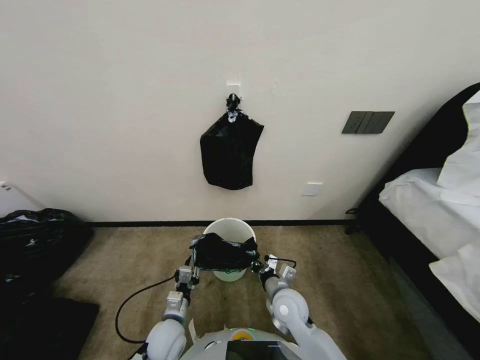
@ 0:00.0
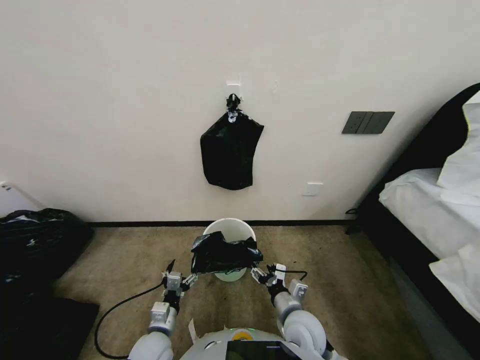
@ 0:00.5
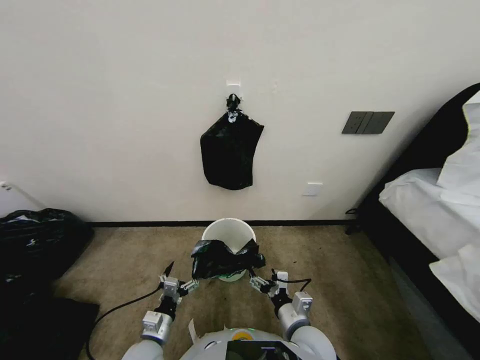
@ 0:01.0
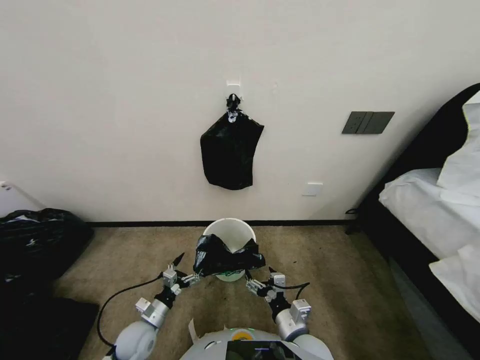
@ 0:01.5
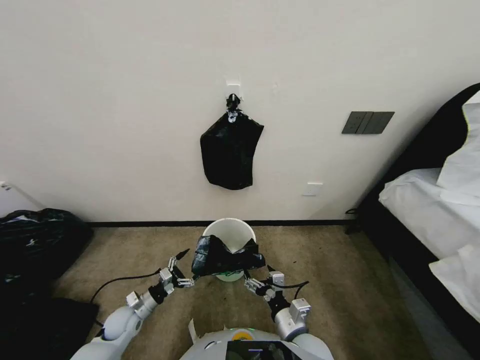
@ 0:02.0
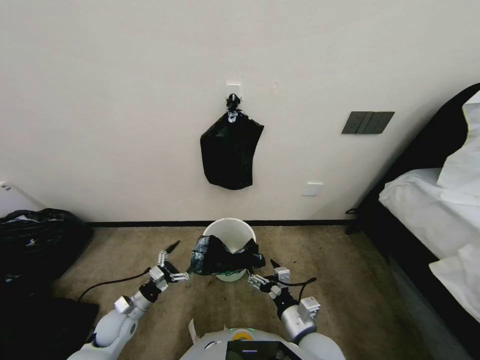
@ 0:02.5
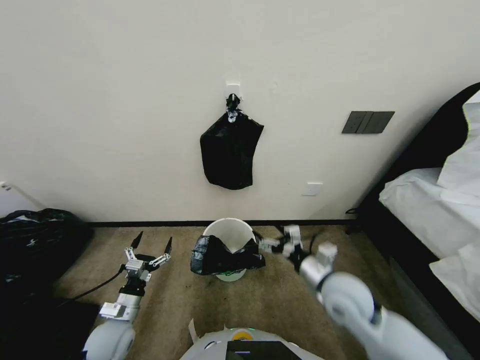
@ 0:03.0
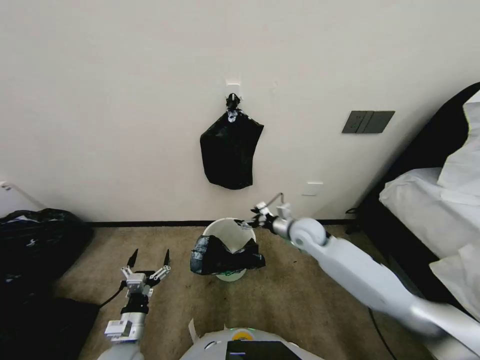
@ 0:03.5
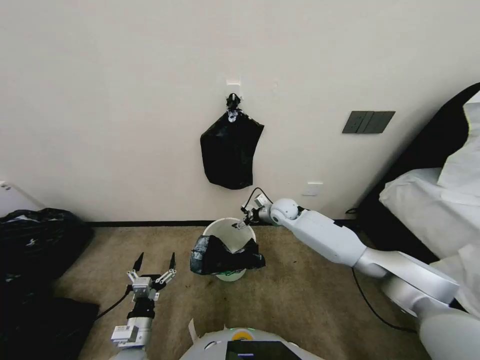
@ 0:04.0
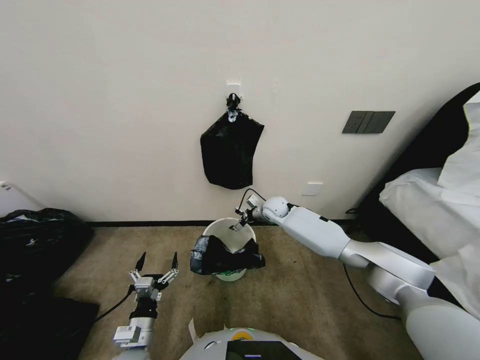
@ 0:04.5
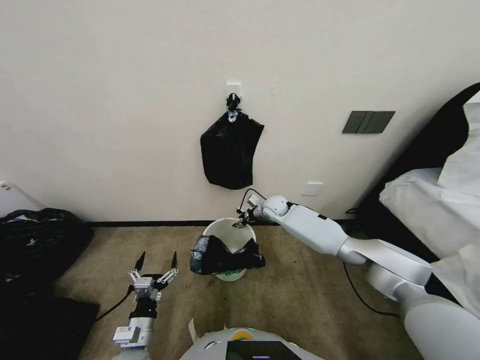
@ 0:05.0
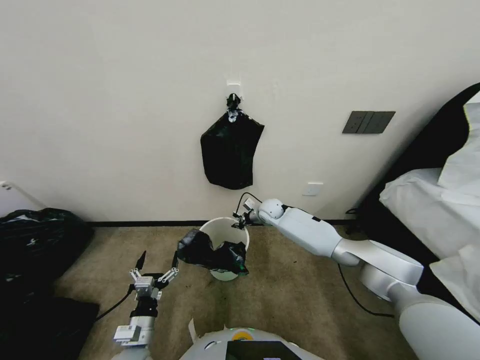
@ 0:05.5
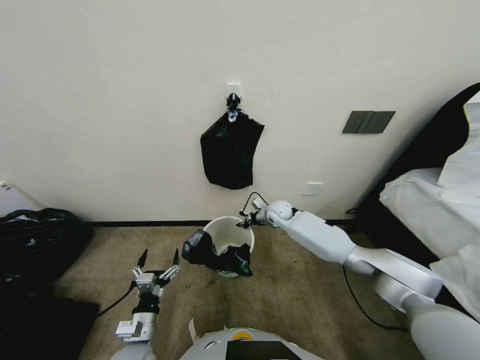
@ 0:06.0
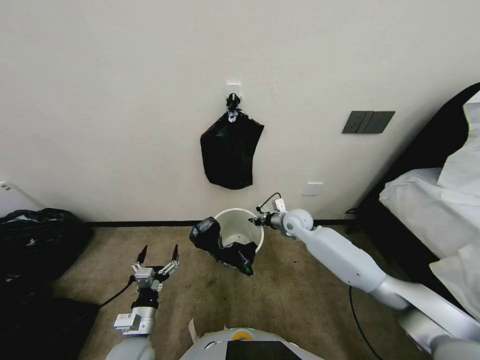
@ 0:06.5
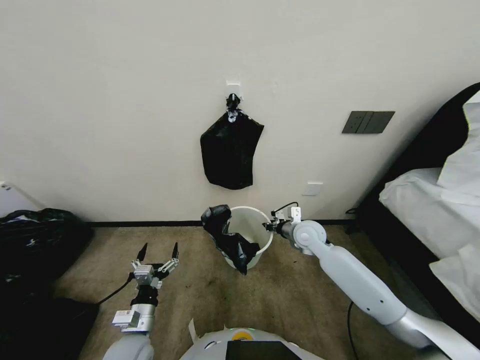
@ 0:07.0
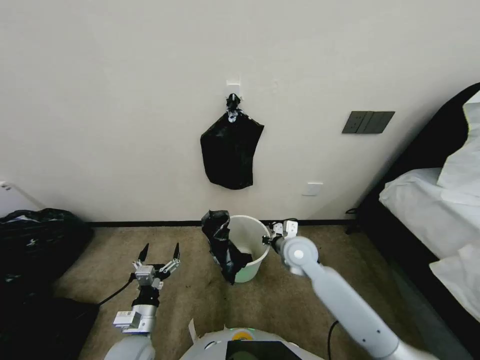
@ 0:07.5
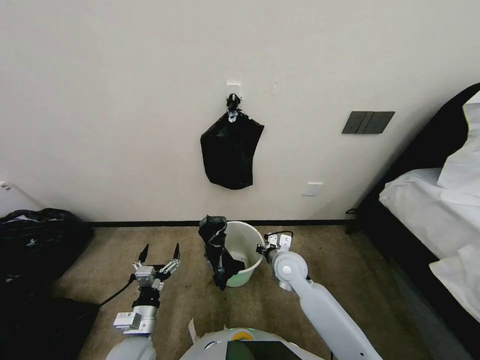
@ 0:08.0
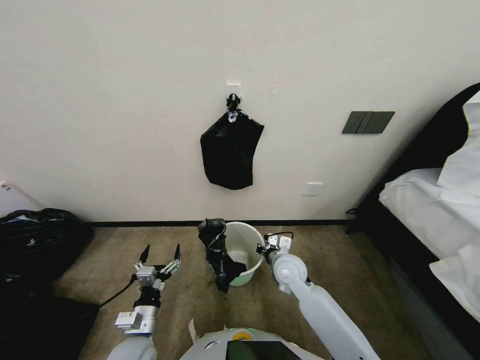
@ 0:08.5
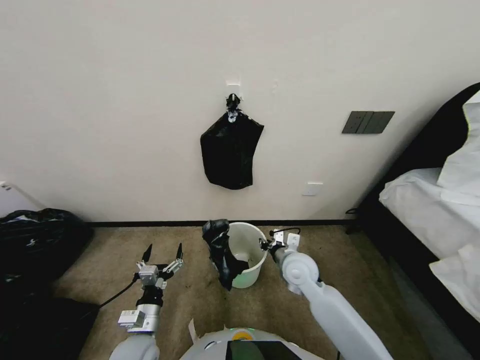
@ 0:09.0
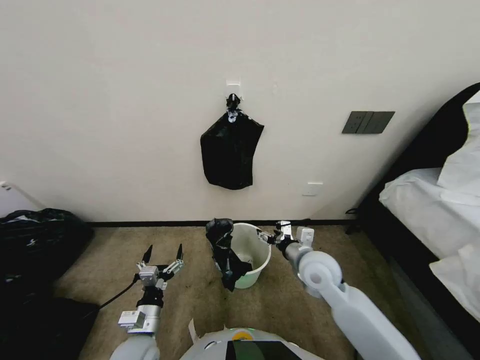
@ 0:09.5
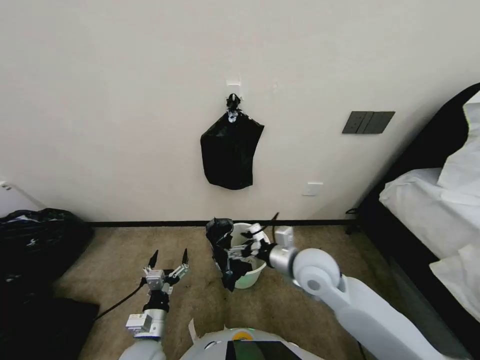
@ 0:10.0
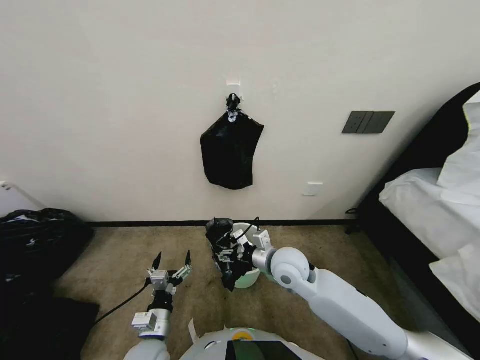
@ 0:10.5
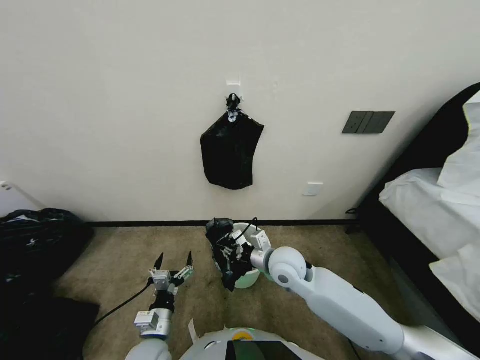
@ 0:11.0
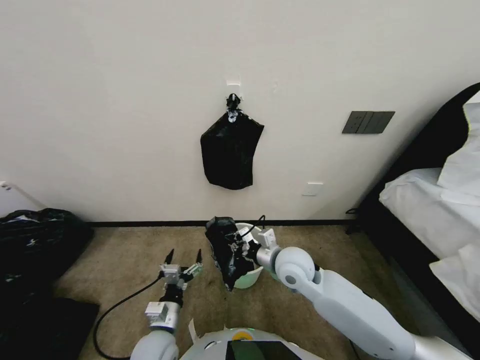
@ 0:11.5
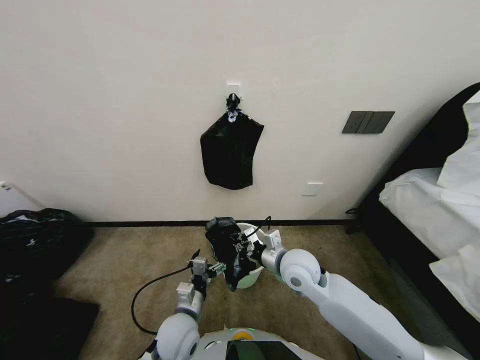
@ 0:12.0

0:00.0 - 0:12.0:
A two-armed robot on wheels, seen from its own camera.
Task of the whole recording: Place a trash bag onto the trash bin.
0:00.0 - 0:02.0: The left gripper is displaced to the left by approximately 15 cm, and opens, while the right gripper shifts some 10 cm backward, and opens up.
0:02.0 - 0:04.0: The right gripper is displaced forward by some 40 cm. Meanwhile the left gripper moves backward, to the right and upward, some 15 cm.
0:04.0 - 0:06.0: The right gripper closes up.
0:06.0 - 0:08.0: The right gripper shifts some 20 cm backward.
0:08.0 - 0:10.0: The right gripper is displaced upward and backward by roughly 10 cm, and opens.
0:10.0 - 0:12.0: The right gripper closes its fingers. The left gripper travels to the right by about 5 cm.

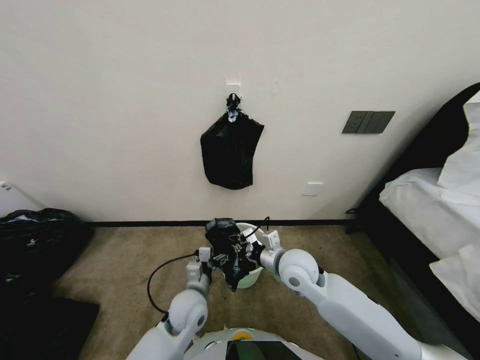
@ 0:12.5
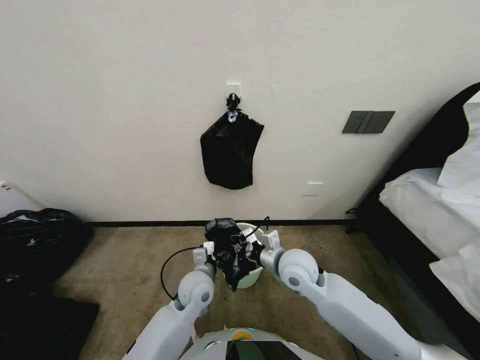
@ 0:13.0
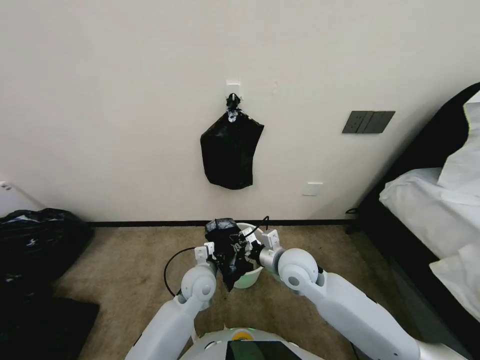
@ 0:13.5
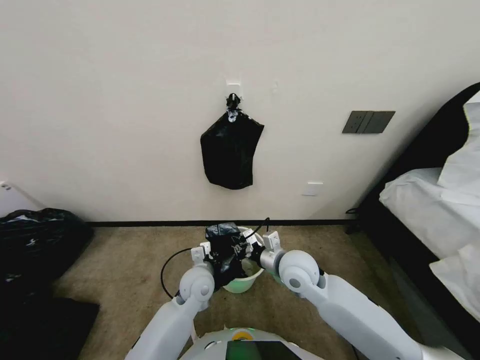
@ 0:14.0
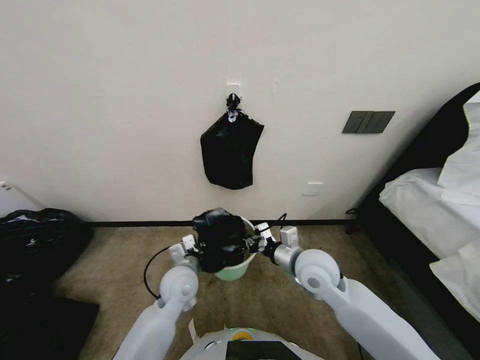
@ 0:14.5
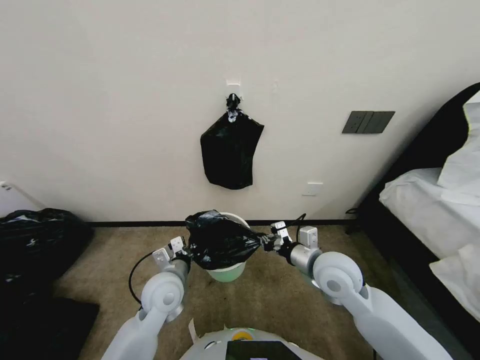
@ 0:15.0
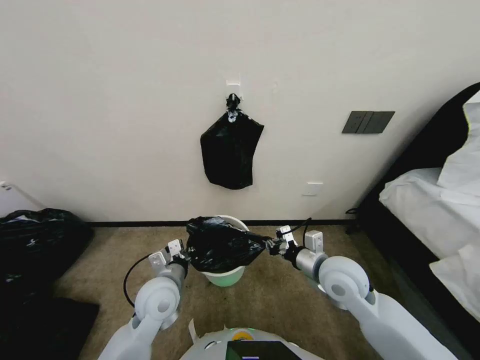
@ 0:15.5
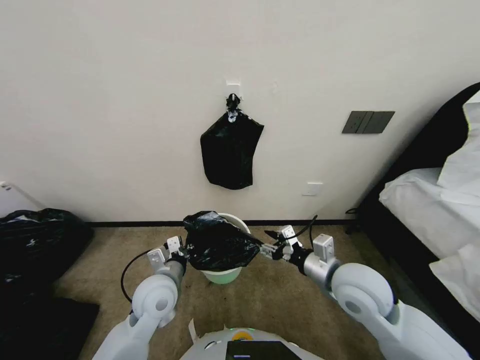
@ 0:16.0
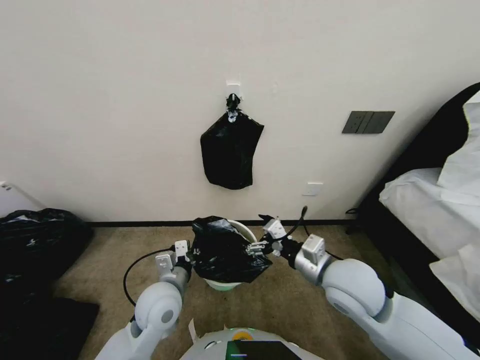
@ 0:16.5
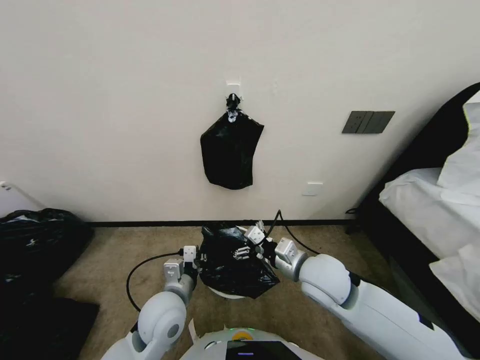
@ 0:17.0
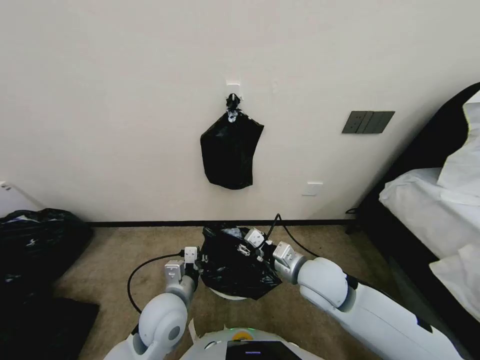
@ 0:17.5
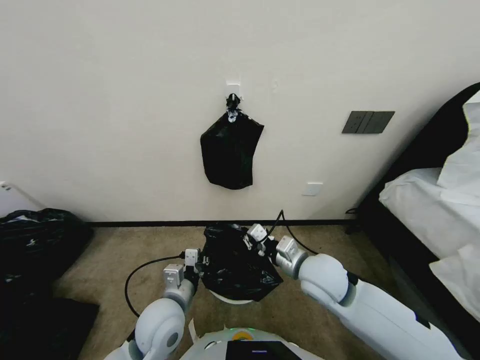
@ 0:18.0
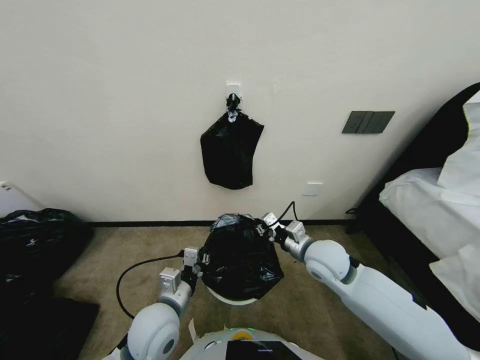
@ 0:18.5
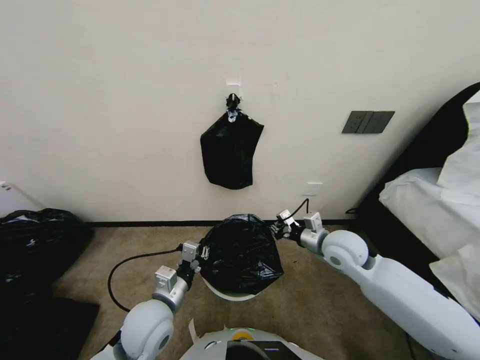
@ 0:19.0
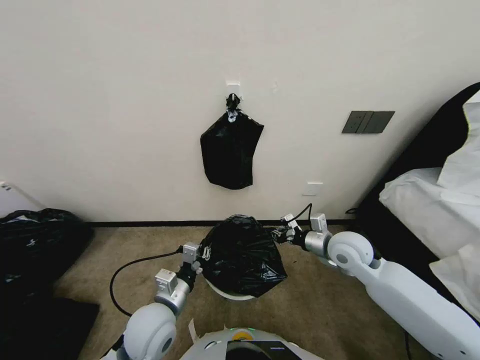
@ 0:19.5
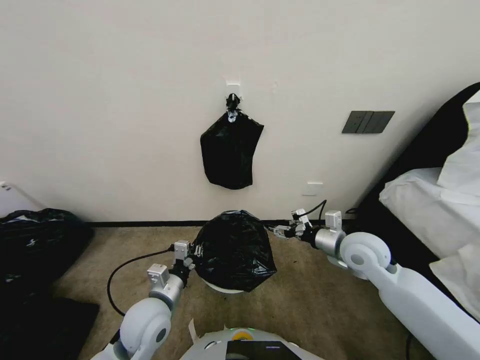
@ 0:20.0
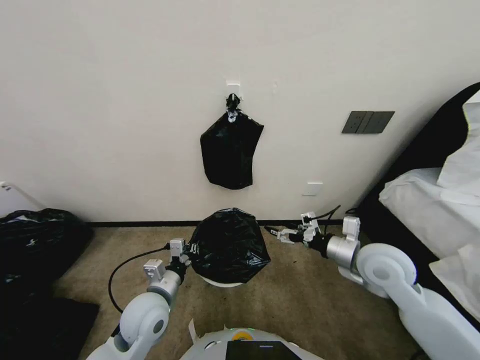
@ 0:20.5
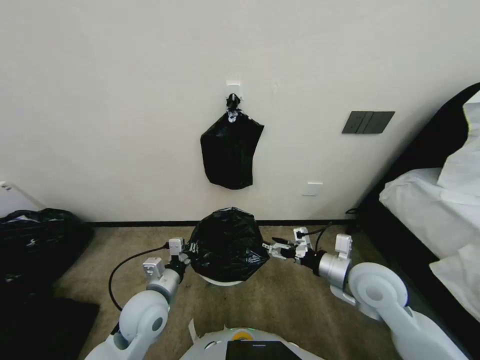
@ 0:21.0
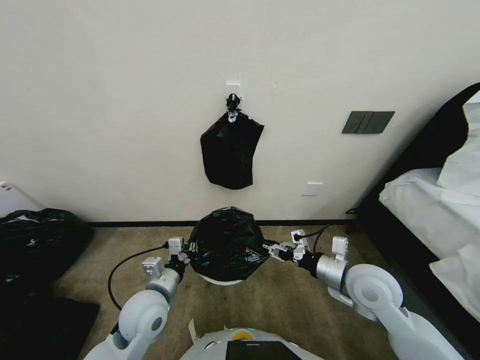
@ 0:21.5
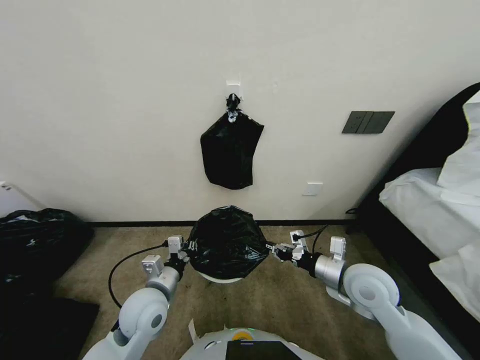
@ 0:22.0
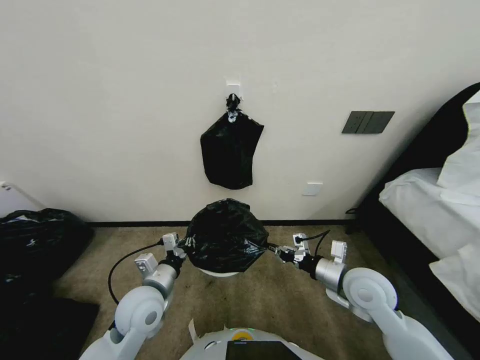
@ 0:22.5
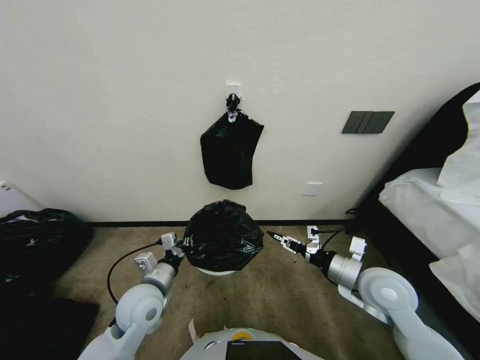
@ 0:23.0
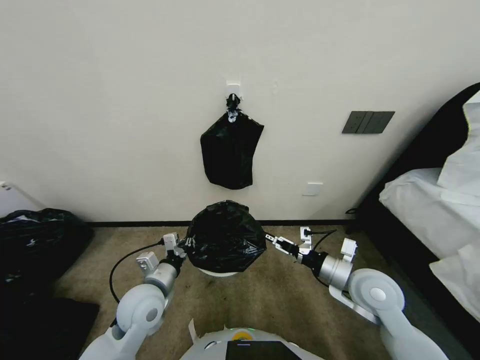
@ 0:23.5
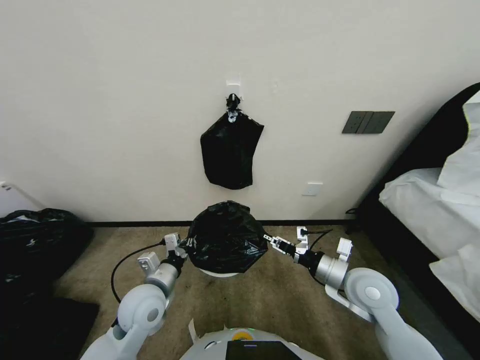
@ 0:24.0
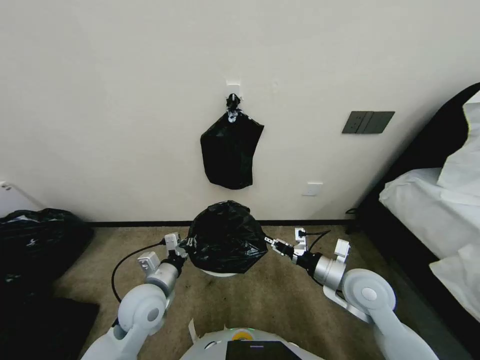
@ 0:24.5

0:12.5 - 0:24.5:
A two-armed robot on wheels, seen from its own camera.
Task of the whole recording: Place a trash bag onto the trash bin.
0:12.5 - 0:14.5: The left gripper goes some 5 cm forward, and closes.
0:14.5 - 0:16.5: The right gripper heads backward and upward, covering approximately 10 cm, and opens up; the left gripper travels backward by roughly 5 cm.
0:16.5 - 0:18.5: The right gripper is displaced forward by roughly 10 cm, and closes its fingers.
0:18.5 - 0:20.5: The right gripper moves to the right, some 10 cm, and opens.
0:20.5 - 0:22.5: The right gripper moves downward, some 5 cm, and closes up.
0:22.5 - 0:24.5: The right gripper opens and closes again.

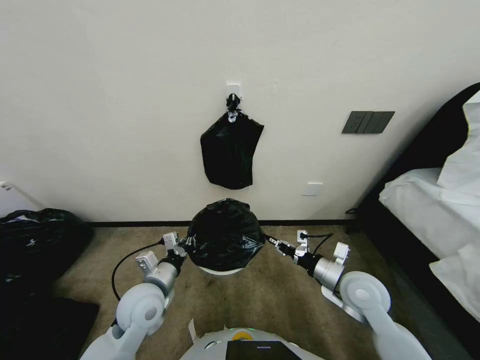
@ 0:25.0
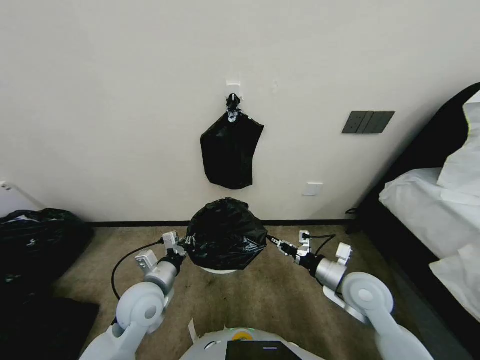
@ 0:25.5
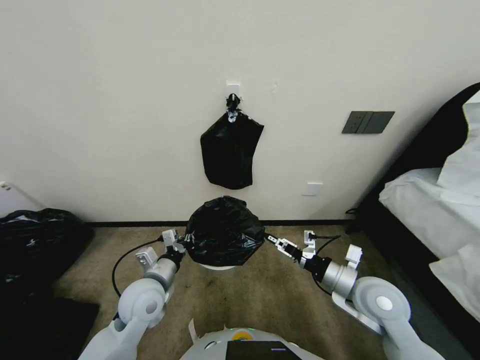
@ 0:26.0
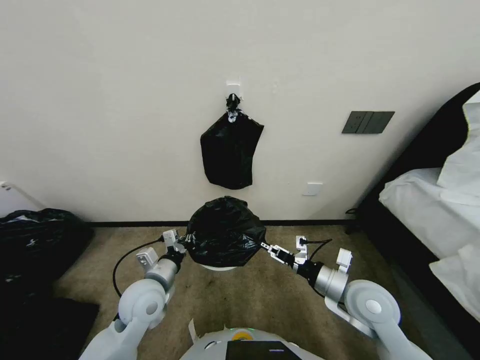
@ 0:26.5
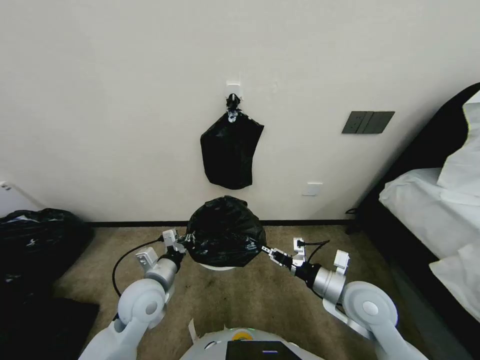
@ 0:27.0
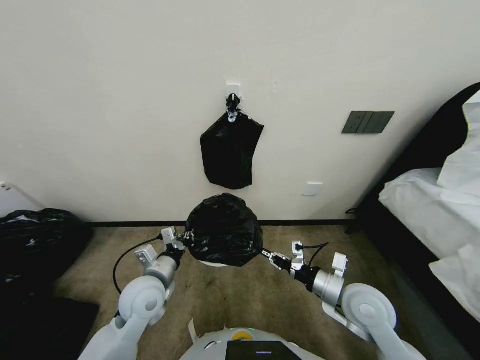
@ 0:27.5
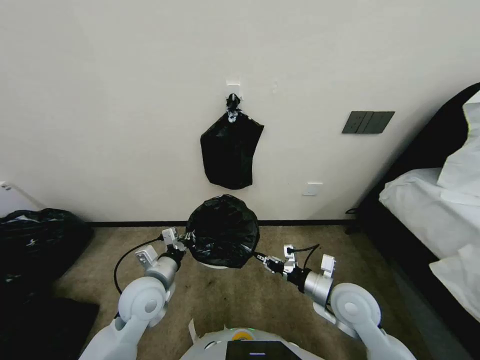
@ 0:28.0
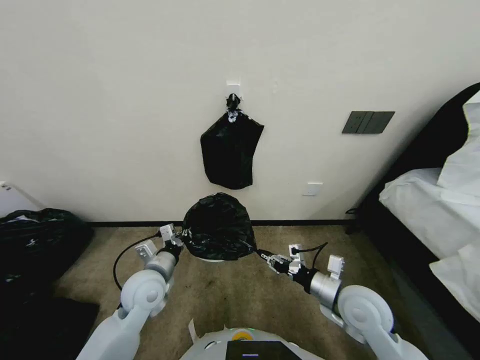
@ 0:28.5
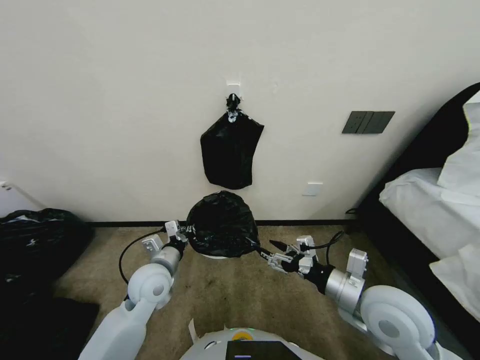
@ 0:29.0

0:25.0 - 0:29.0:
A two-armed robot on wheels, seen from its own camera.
Task of the whole recording: Place a trash bag onto the trash bin.
0:25.0 - 0:27.0: The right gripper opens, then closes again.
0:27.0 - 0:29.0: The right gripper is displaced upward by about 5 cm, and opens.
